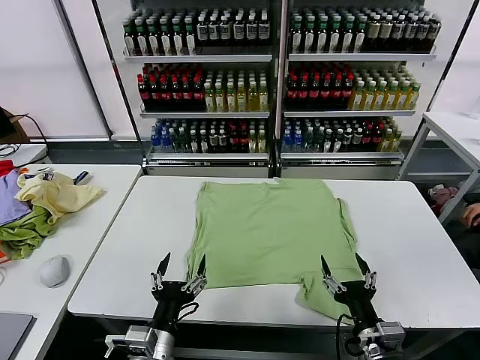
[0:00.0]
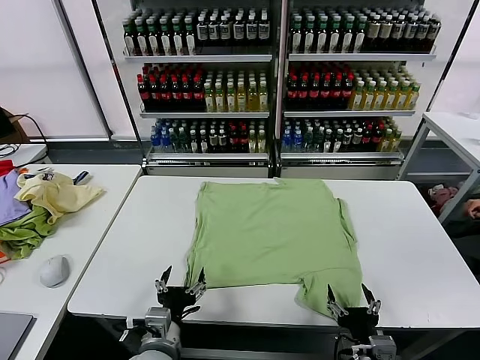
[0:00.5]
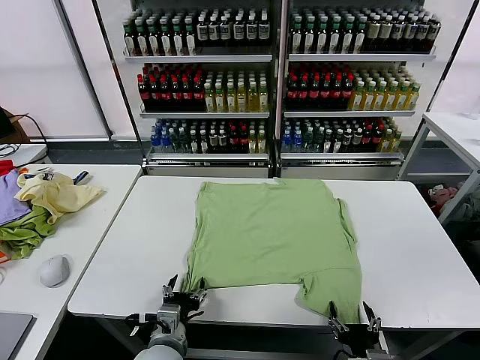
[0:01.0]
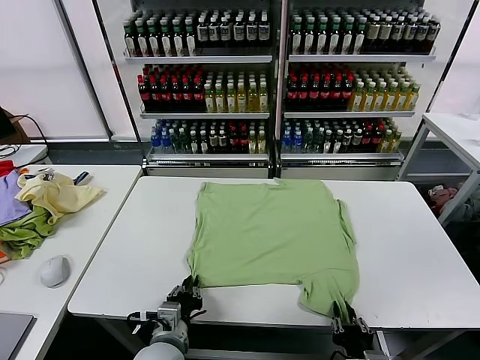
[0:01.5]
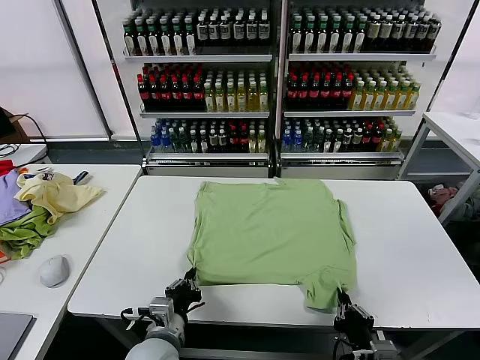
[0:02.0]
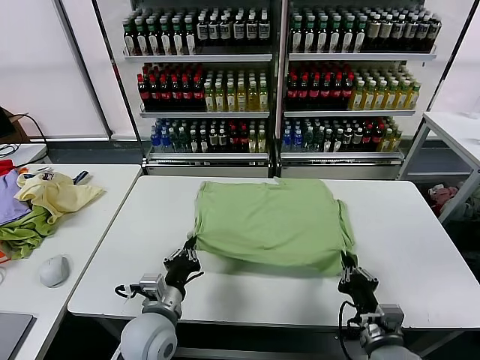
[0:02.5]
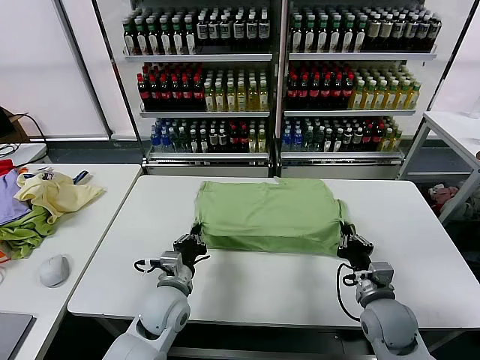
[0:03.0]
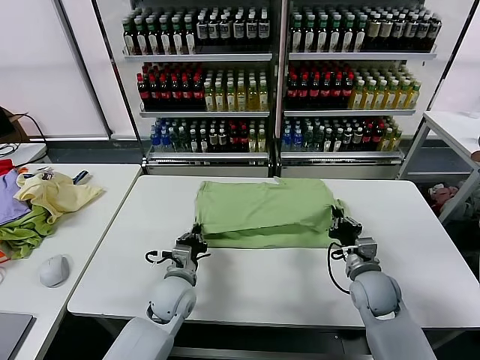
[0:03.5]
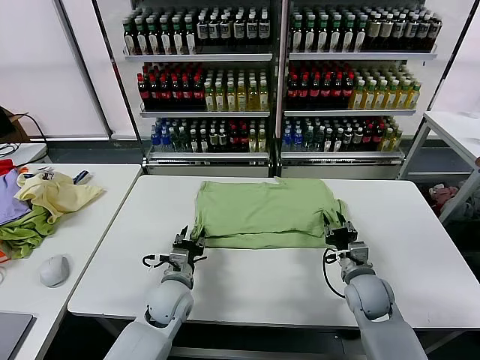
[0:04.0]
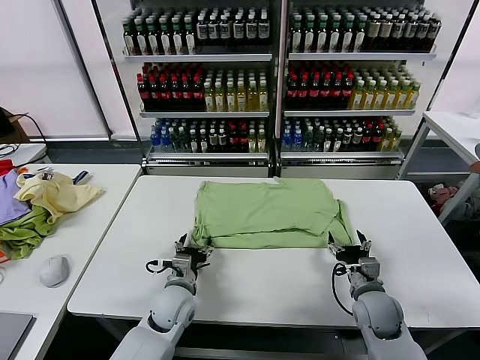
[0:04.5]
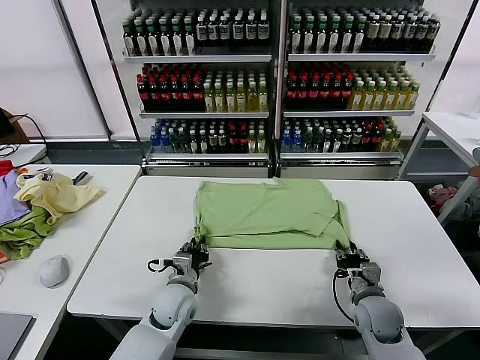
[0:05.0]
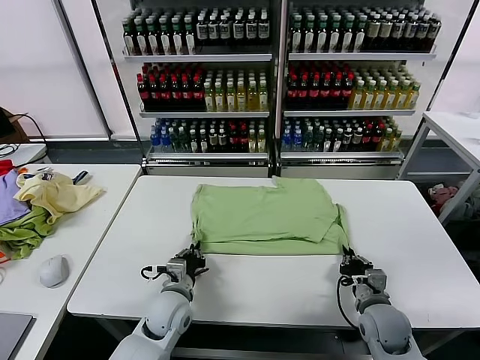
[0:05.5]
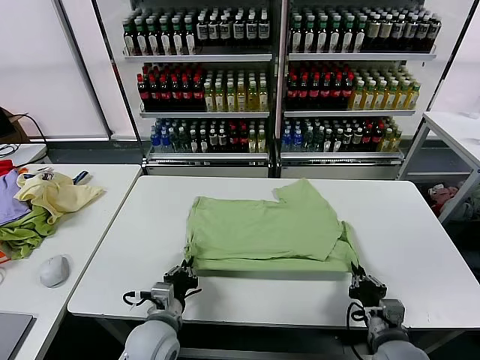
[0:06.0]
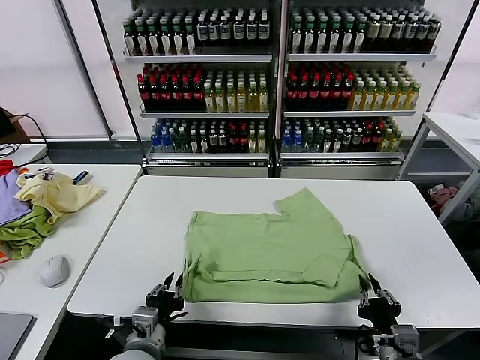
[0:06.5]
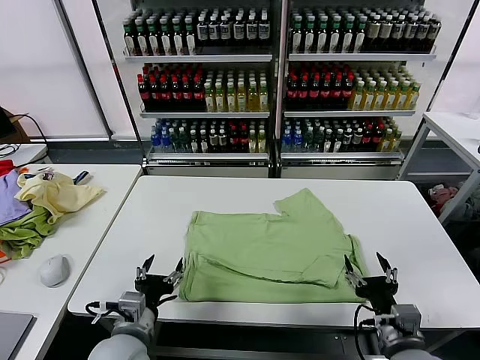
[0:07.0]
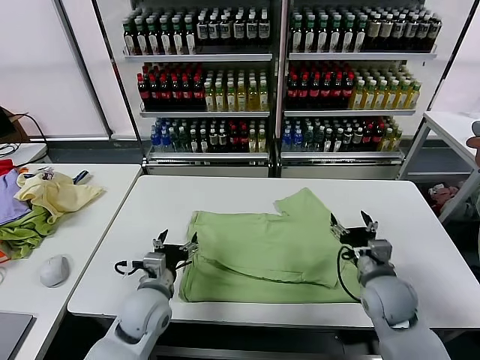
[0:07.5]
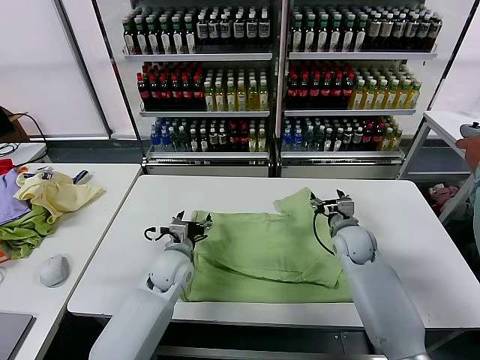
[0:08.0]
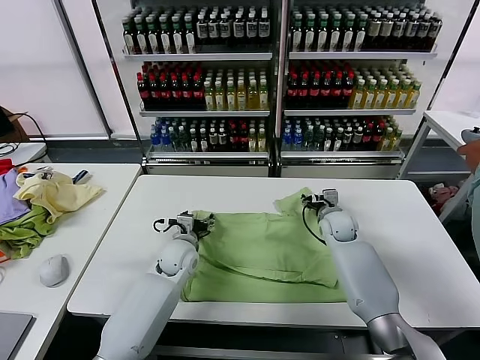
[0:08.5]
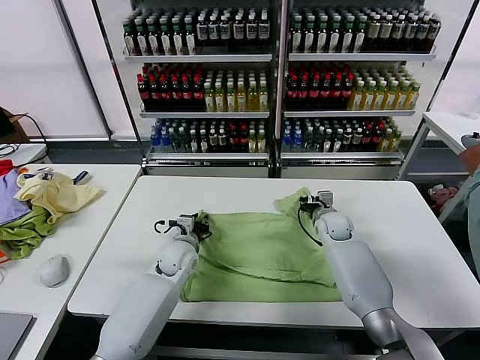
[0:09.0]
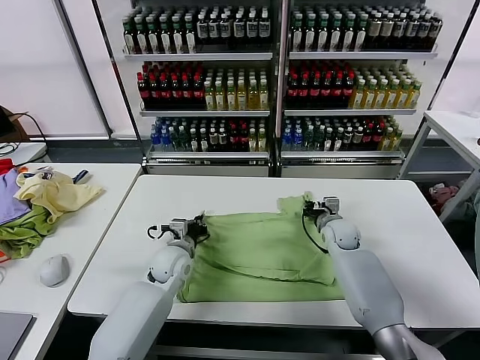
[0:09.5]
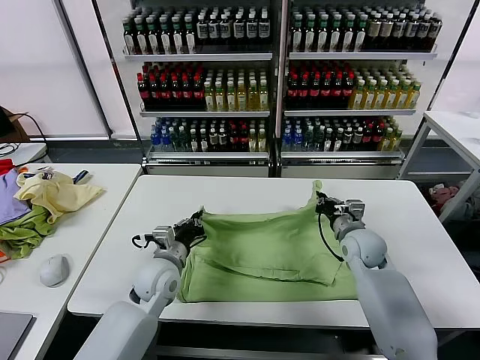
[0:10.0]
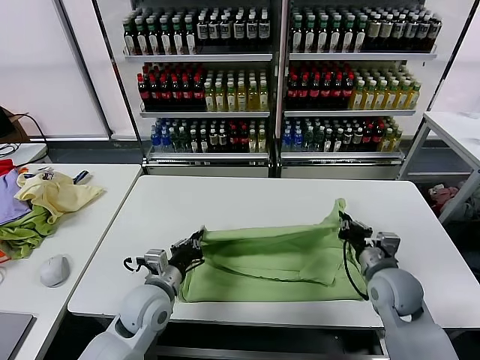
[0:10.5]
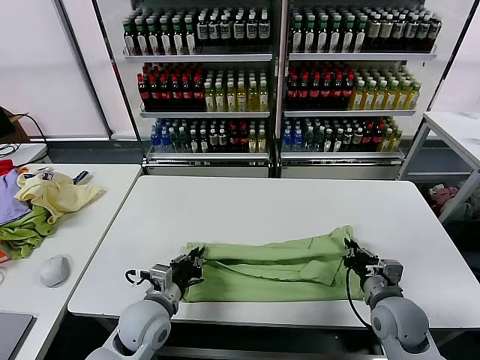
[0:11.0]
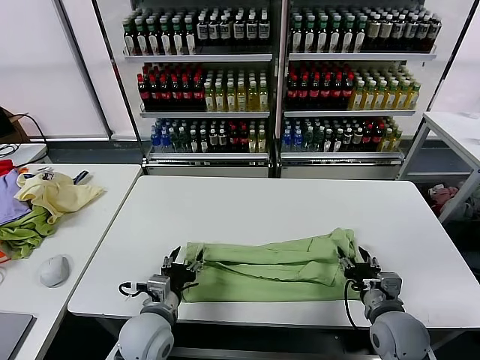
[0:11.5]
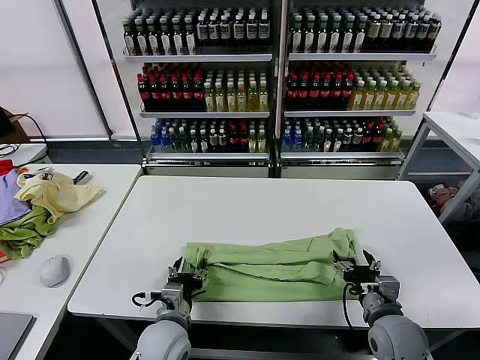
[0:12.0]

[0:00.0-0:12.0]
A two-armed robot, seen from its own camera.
Task of the whole recording: fold and organize the clothes.
Step, 0:00.0 to 0:01.5: use both grippers simultaneously to clamp the lower edge of the clothing fabric.
Step, 0:02.0 to 0:04.0: use both grippers to drag the lower edge of the fabric forward and fold it over the upper edge.
Step, 0:04.5 to 0:06.5: Drag the clothes downward with both gripper.
Step, 0:07.0 to 0:09.0: use both grippers simultaneously to clamp the upper edge of the clothing fabric.
Step, 0:09.5 to 0:11.0: use both grippers to drag the upper edge of the fabric backward and fold it over the lower edge.
0:02.0 to 0:04.0: The two grippers go roughly 15 cm forward. The right gripper opens. Meanwhile the left gripper opens.
0:04.0 to 0:06.0: The left gripper moves backward, roughly 10 cm, and closes, while the right gripper travels backward by about 15 cm, and closes up.
0:06.0 to 0:08.0: The right gripper travels forward by roughly 30 cm, and opens its fingers. Meanwhile the left gripper heads forward, covering about 15 cm, and opens up.
0:08.0 to 0:10.0: The left gripper closes its fingers. Meanwhile the right gripper moves roughly 5 cm, and closes its fingers.
0:10.0 to 0:12.0: The two grippers go roughly 15 cm backward. The right gripper opens up. The left gripper opens.

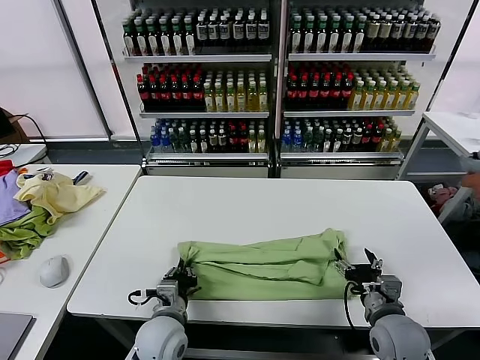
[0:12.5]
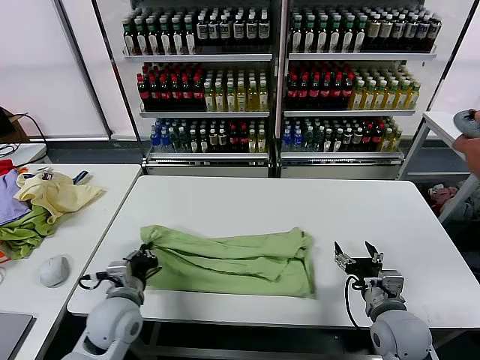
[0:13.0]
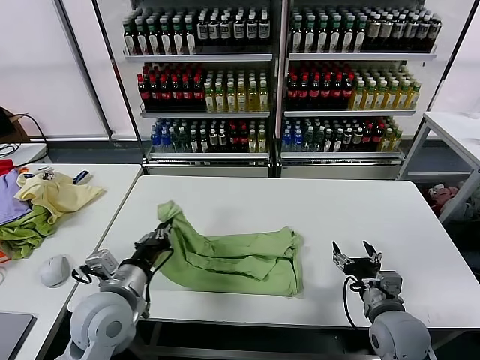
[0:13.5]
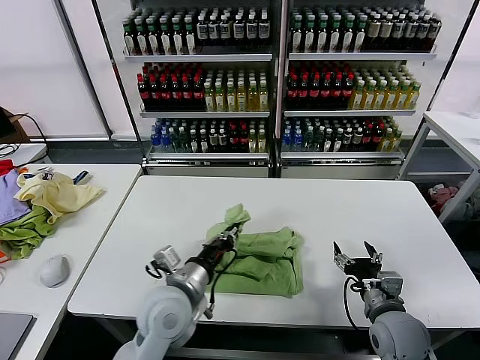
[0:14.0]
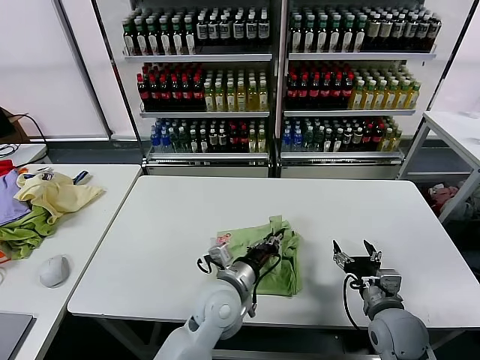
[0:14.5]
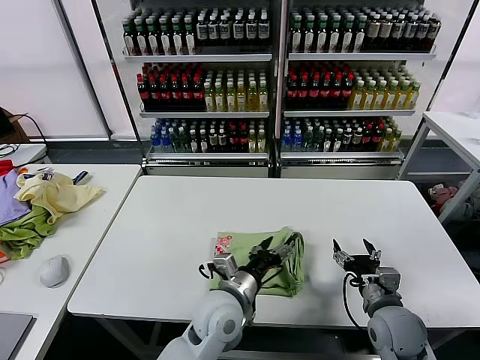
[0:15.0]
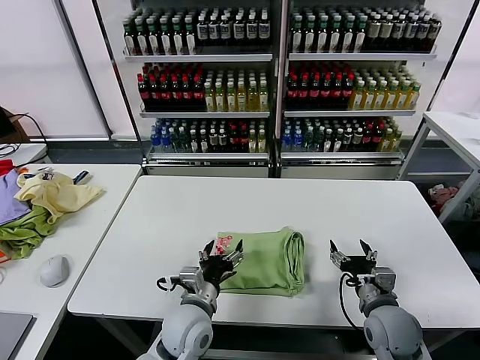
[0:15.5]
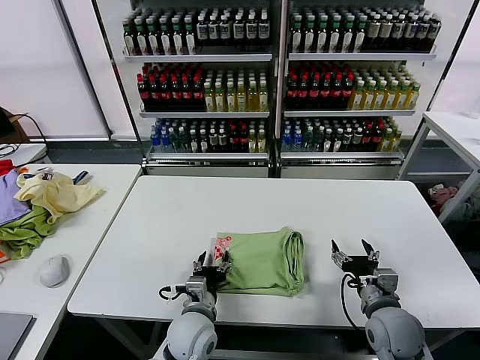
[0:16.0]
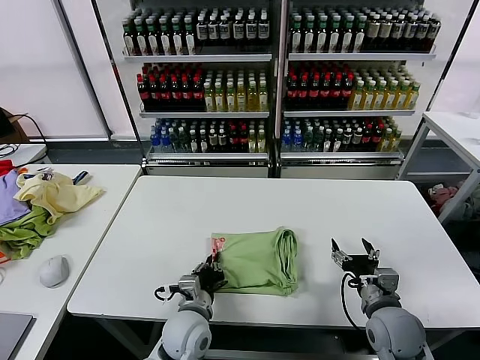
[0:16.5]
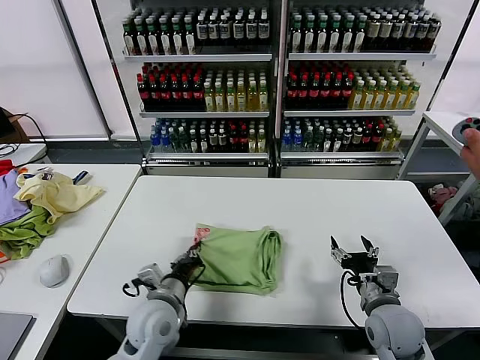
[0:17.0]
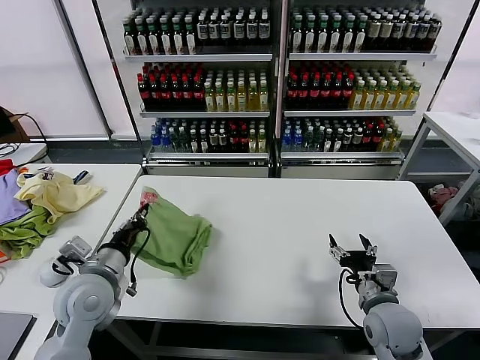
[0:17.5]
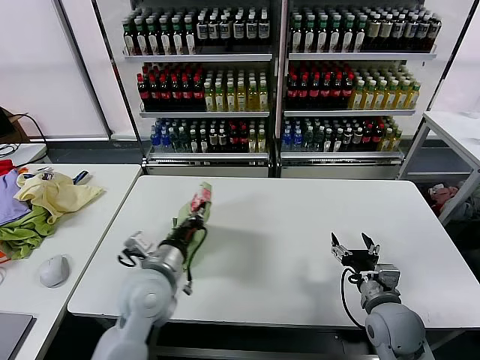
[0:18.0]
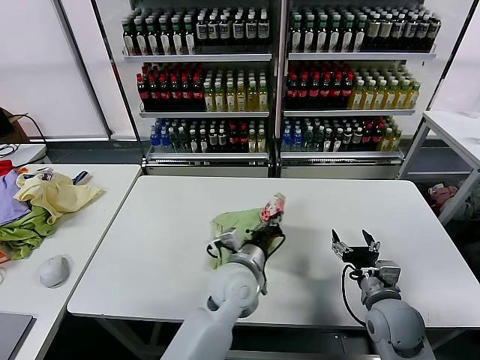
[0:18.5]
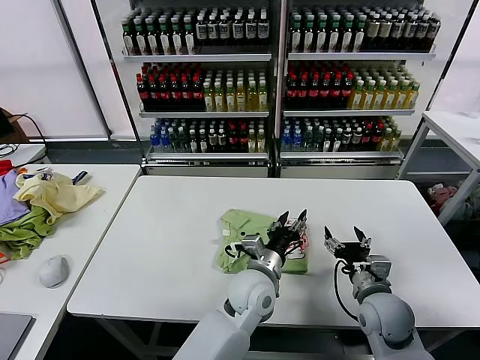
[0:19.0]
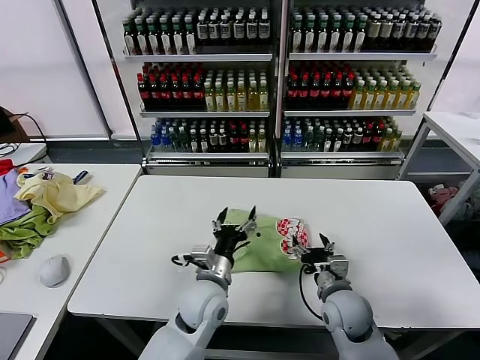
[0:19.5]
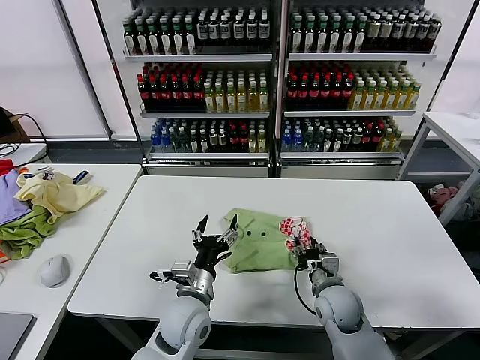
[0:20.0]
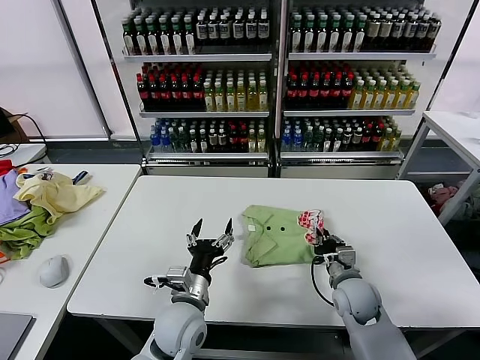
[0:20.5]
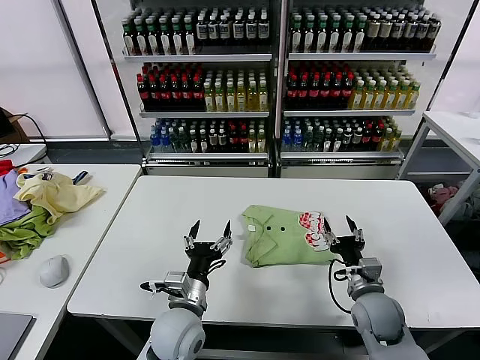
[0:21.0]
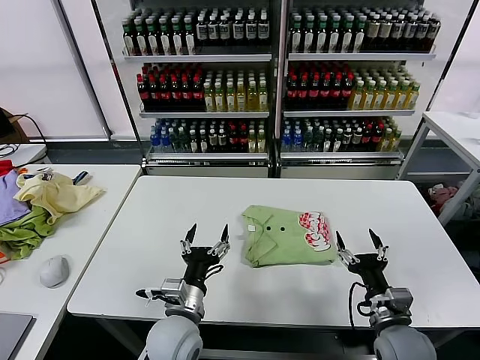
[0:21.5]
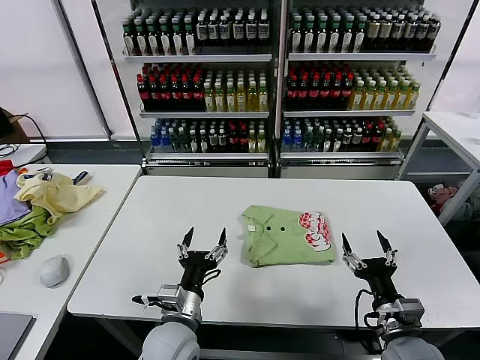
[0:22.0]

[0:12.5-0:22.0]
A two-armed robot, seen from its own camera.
Task of the whole recording: fold and organize the clothes.
Step, 0:13.0 to 0:14.5: use the left gripper to drag the left edge of the fabric to the left and folds it over the right edge.
Step, 0:15.0 to 0:18.5: Flip the folded clothes over with left gripper.
Step, 0:19.0 to 0:20.5: Drag the clothes to the center of the table.
0:12.5 to 0:14.5: The left gripper shifts about 15 cm to the right and upward.
0:14.5 to 0:16.5: The left gripper moves downward and to the left, about 10 cm, and opens and closes again.
0:16.5 to 0:18.0: The left gripper moves upward and to the left, about 15 cm.
0:18.0 to 0:20.0: The right gripper travels to the left, forward and downward by some 10 cm, and closes up. Meanwhile the left gripper is displaced to the right and downward by about 10 cm, and opens its fingers.
0:20.0 to 0:22.0: The left gripper shifts about 5 cm backward, while the right gripper moves backward, to the right and upward, roughly 15 cm, and opens its fingers.
